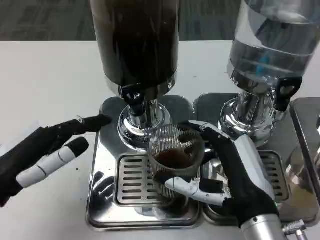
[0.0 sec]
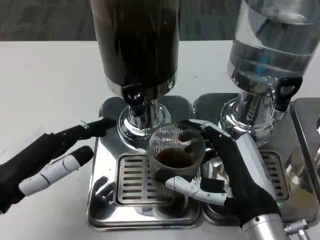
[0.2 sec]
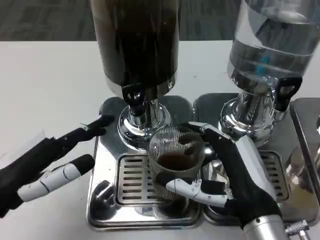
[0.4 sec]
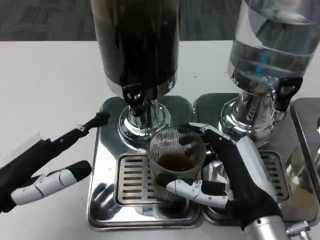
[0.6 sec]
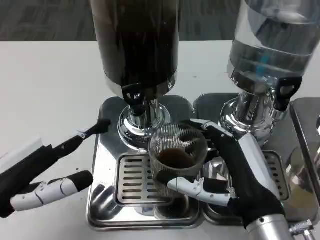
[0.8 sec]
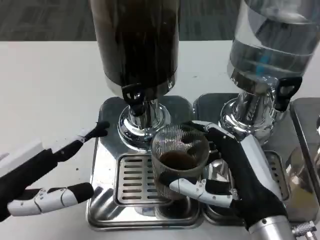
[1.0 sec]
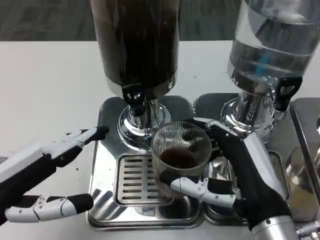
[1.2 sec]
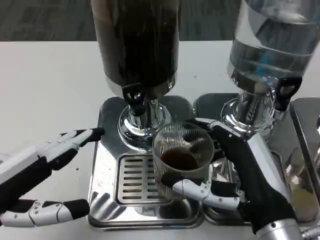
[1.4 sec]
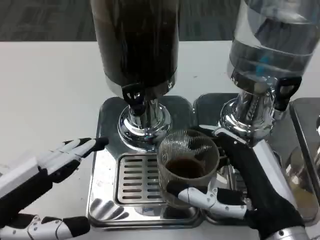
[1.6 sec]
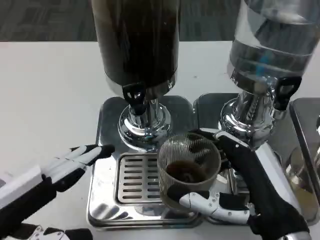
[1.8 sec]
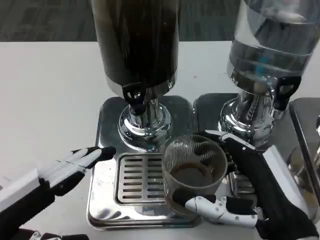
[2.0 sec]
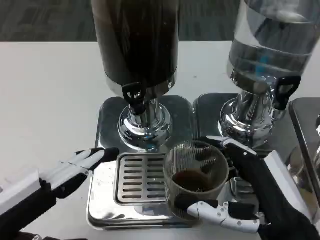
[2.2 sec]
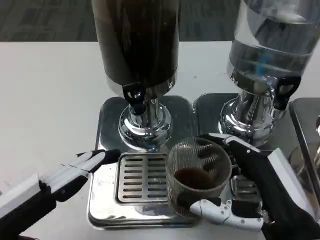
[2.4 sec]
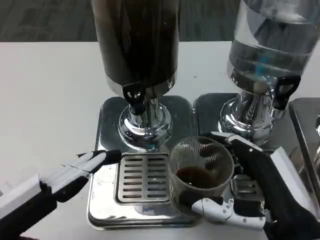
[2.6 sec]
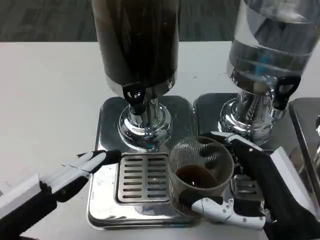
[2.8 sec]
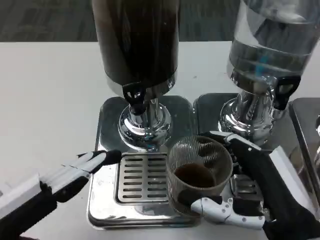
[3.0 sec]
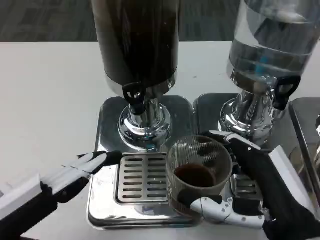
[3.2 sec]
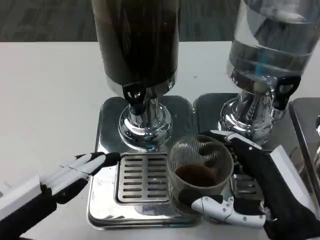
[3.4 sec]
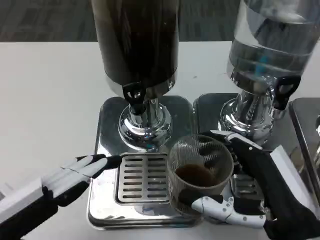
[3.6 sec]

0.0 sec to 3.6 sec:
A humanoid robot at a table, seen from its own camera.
Task of the whole recording: Grasp the cup under the faucet to collect the drink, then remove the cup.
0.0 sec to 1.8 sec: The left hand is displaced backward by approximately 5 cm.
1.8 sec to 3.6 sec: The hands make only small movements.

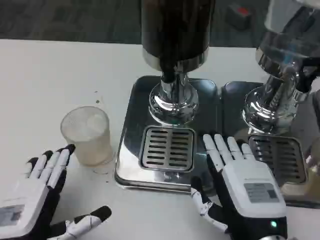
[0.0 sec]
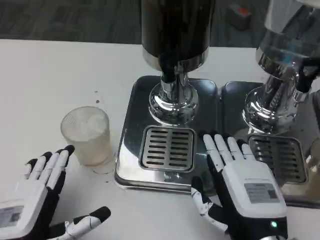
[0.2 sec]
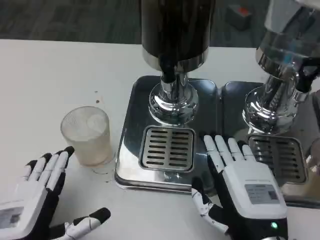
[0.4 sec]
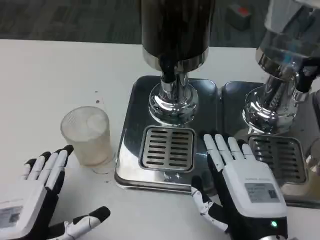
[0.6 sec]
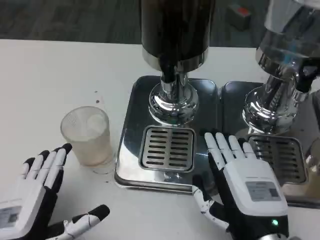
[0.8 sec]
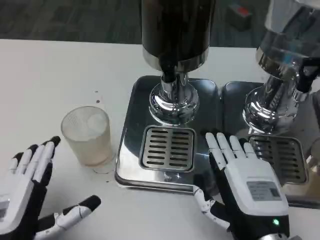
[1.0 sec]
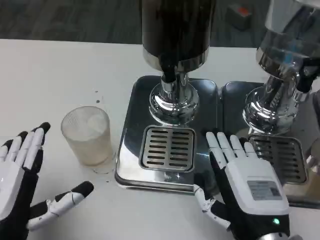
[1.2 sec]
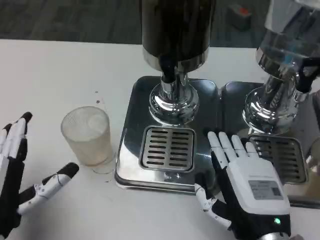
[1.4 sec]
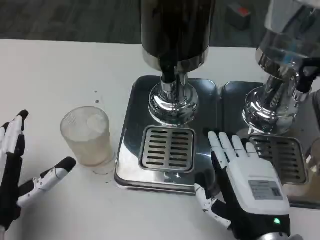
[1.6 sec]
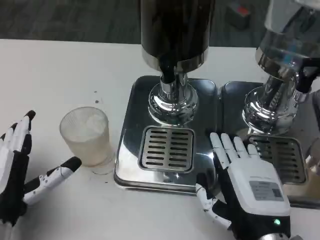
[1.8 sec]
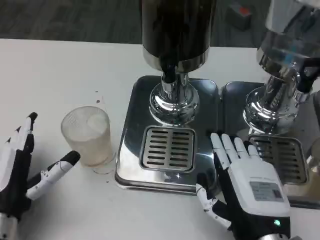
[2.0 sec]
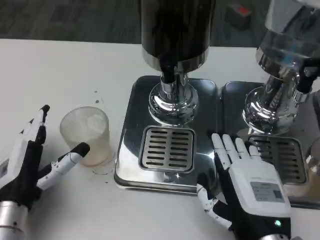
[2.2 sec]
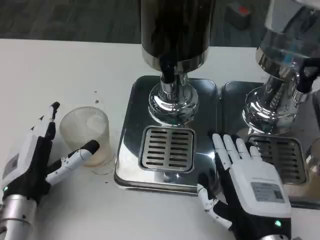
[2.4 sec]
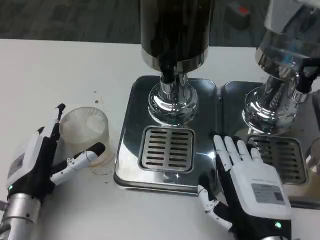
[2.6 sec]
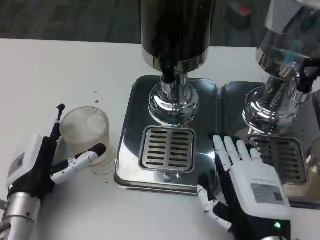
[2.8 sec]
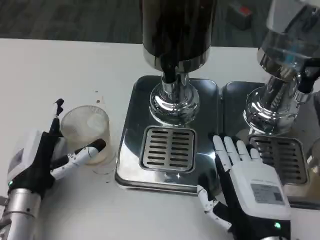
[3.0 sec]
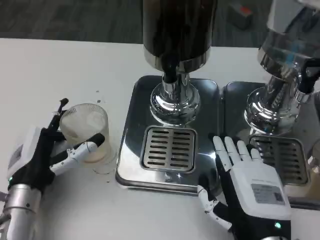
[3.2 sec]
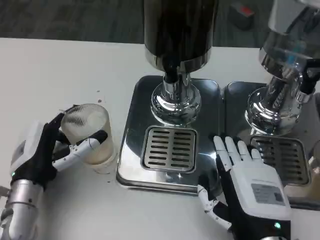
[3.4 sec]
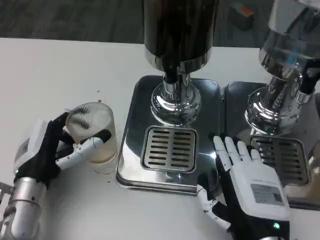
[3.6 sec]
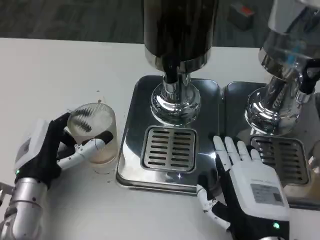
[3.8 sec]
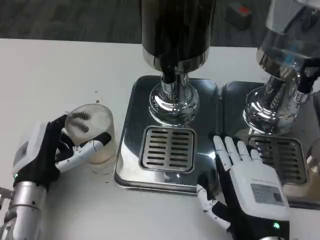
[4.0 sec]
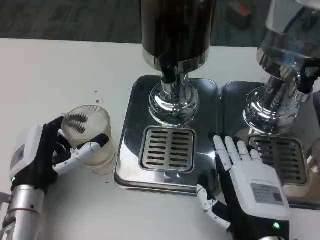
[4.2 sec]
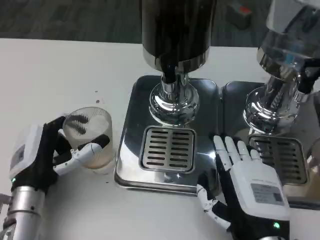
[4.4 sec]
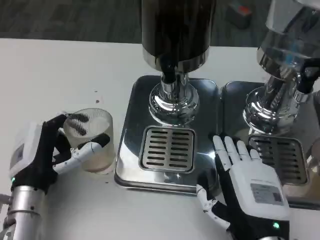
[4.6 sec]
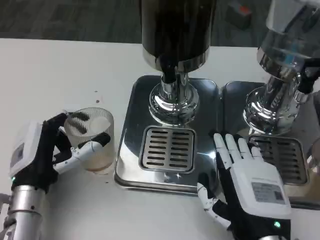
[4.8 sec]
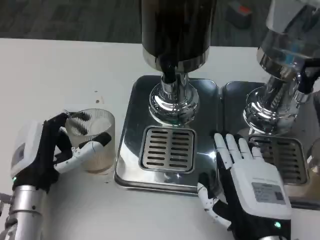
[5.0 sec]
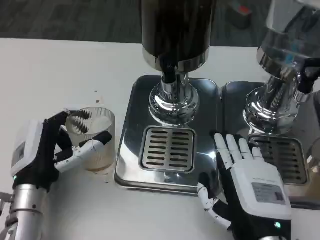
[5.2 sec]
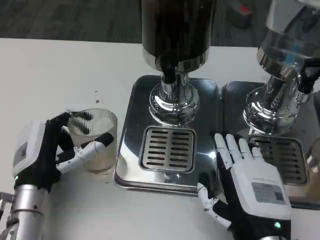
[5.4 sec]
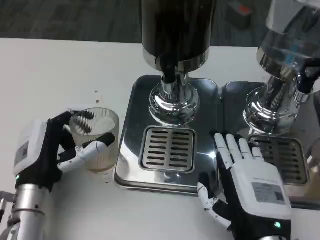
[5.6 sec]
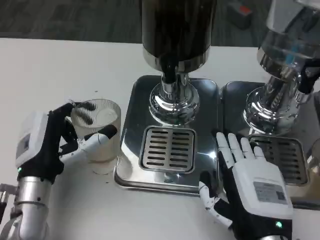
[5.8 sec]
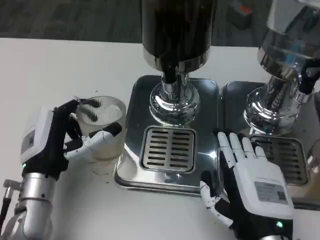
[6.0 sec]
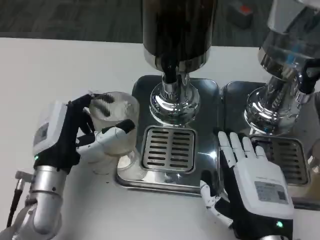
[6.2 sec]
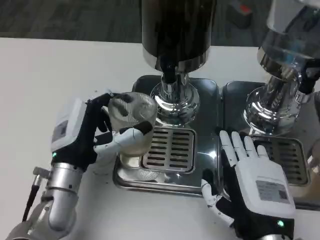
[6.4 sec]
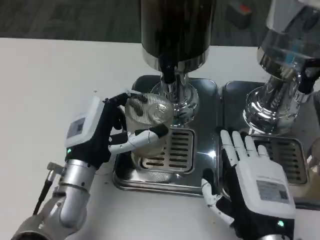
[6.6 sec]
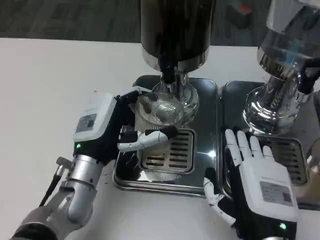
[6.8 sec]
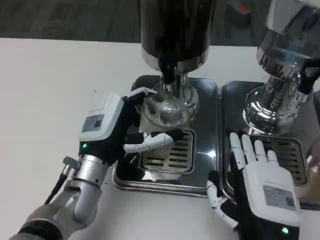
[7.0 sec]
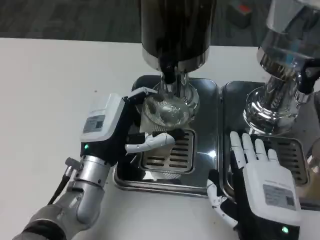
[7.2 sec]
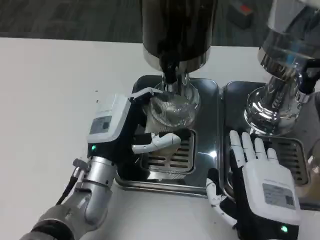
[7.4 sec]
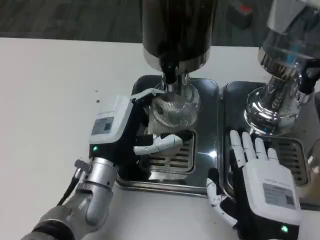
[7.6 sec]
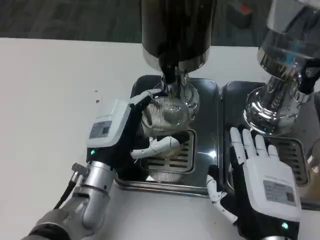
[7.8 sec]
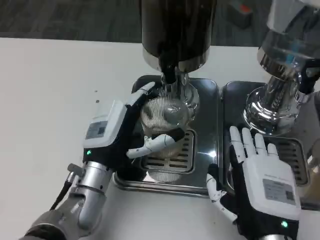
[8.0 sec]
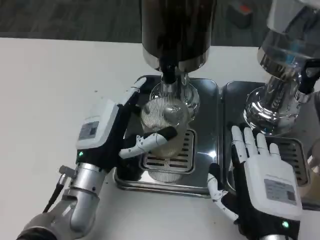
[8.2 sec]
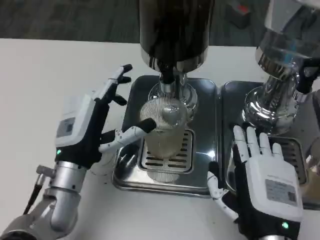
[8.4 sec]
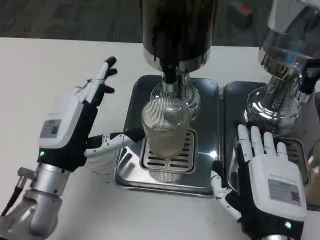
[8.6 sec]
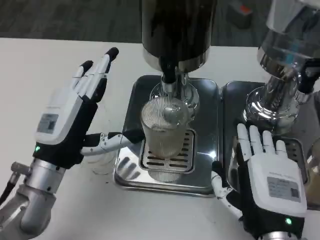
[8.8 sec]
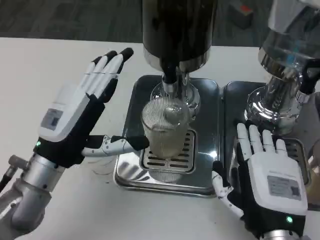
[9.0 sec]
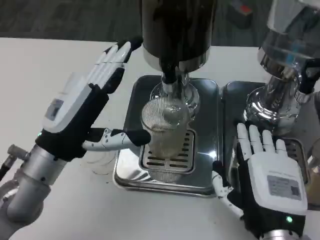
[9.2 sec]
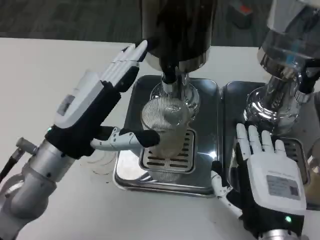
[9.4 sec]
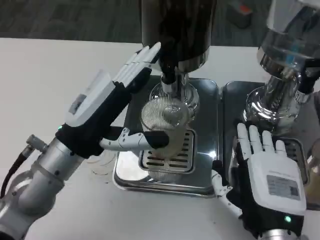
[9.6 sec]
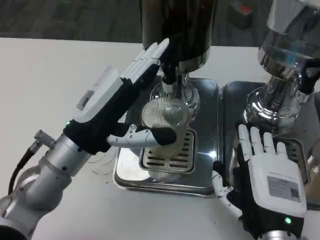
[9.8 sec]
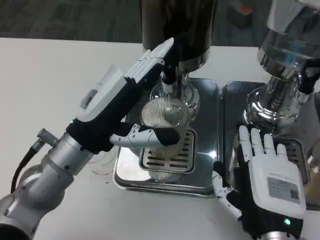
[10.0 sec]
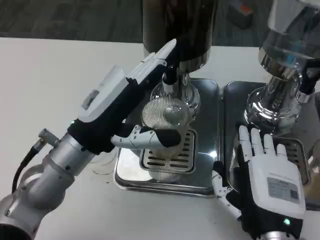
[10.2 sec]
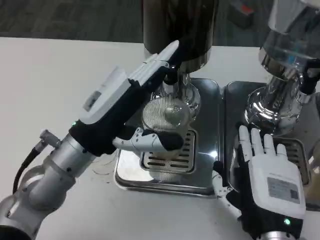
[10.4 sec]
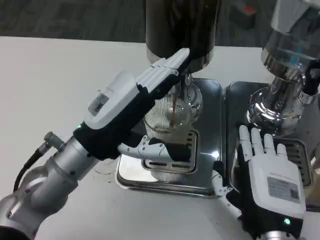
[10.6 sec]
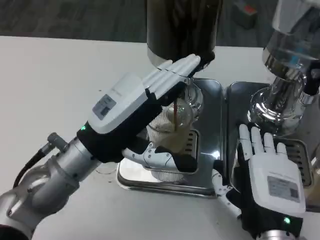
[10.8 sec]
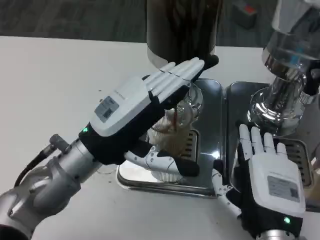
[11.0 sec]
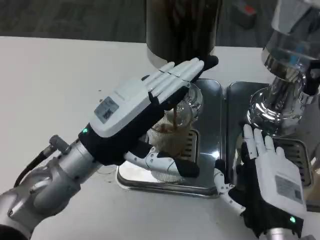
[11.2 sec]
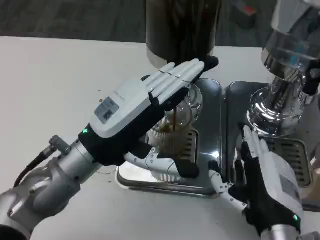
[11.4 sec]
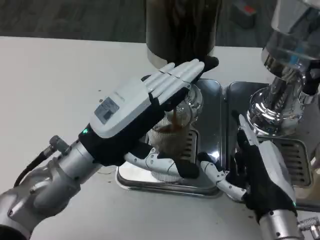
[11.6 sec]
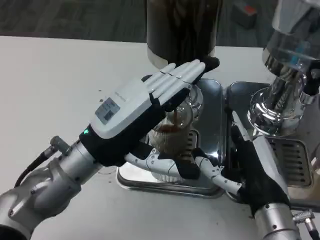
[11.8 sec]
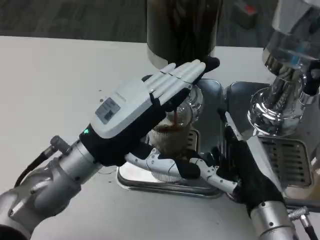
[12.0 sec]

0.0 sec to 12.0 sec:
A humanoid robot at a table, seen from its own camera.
Task of the whole recording: Grasp the cup under the faucet to collect the drink, then remove the cup.
0.0 sec to 1.6 sec: The left hand shifts by approximately 5 cm.
1.6 sec to 3.0 sec: The left hand travels forward by some 5 cm.
3.0 sec to 6.0 sec: The hands move only a little.
6.0 sec to 7.6 sec: The left hand travels to the right by some 10 cm.
7.6 sec to 9.0 sec: The left hand heads to the left, covering about 10 cm.
9.0 sec to 10.4 sec: The left hand changes place by approximately 5 cm.

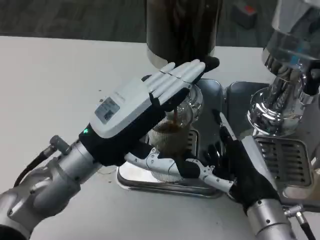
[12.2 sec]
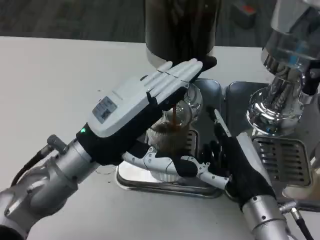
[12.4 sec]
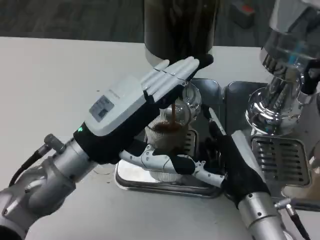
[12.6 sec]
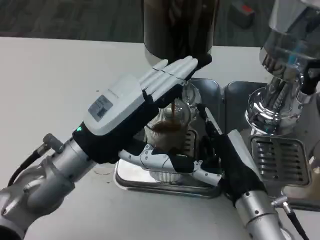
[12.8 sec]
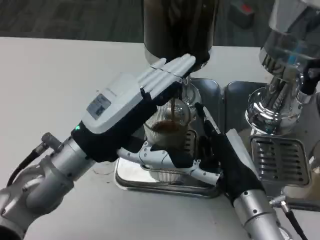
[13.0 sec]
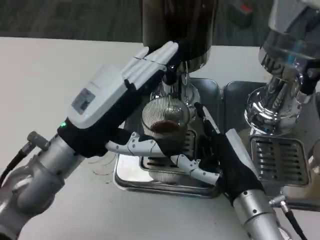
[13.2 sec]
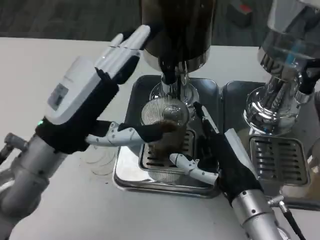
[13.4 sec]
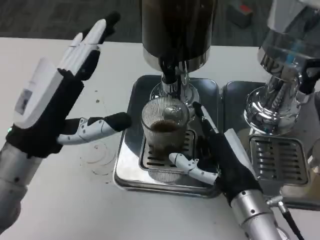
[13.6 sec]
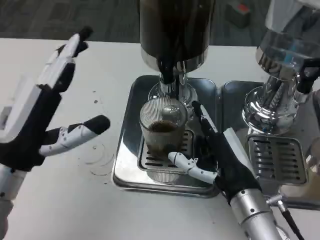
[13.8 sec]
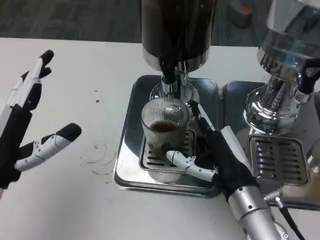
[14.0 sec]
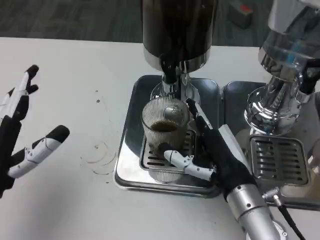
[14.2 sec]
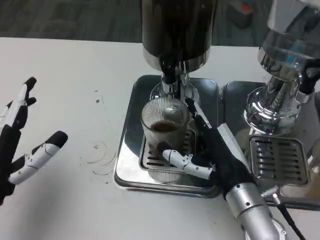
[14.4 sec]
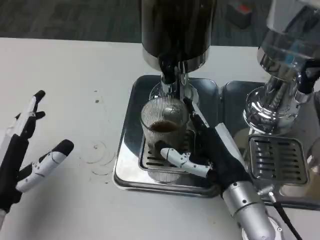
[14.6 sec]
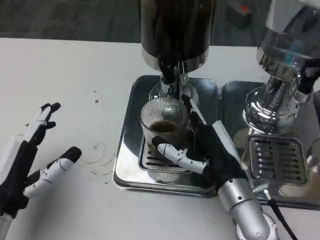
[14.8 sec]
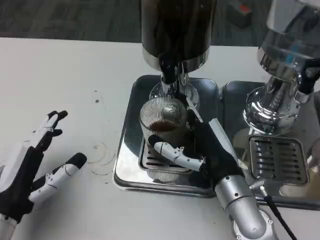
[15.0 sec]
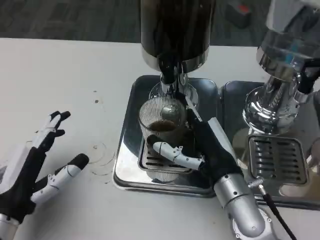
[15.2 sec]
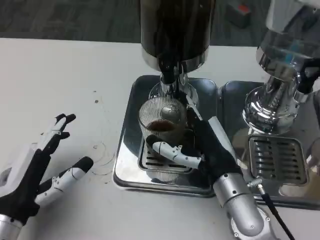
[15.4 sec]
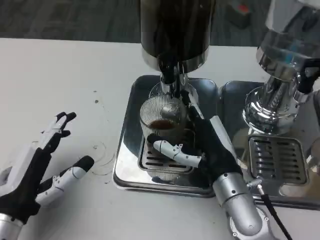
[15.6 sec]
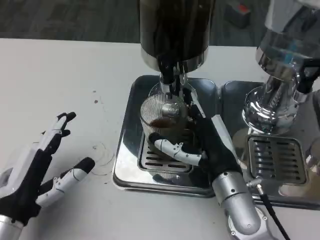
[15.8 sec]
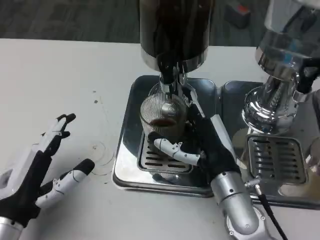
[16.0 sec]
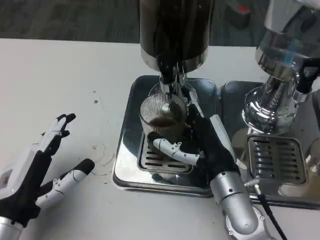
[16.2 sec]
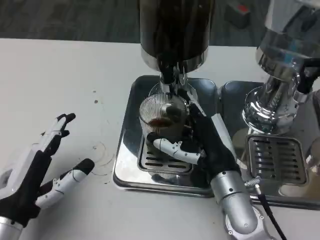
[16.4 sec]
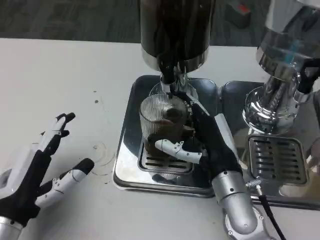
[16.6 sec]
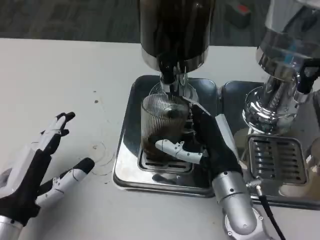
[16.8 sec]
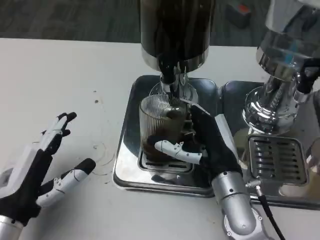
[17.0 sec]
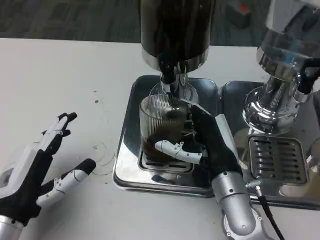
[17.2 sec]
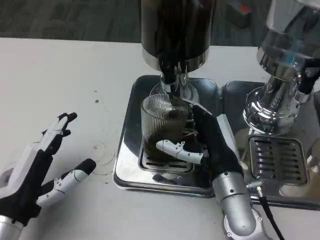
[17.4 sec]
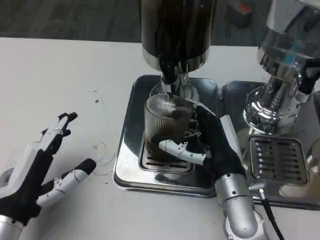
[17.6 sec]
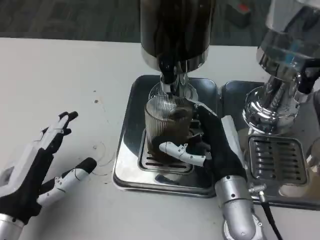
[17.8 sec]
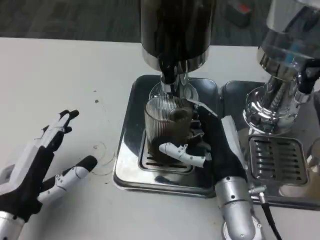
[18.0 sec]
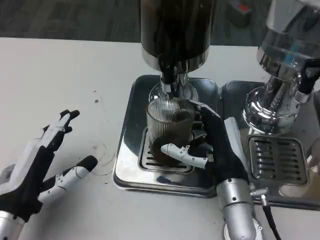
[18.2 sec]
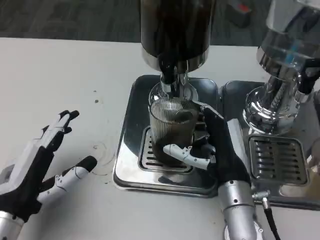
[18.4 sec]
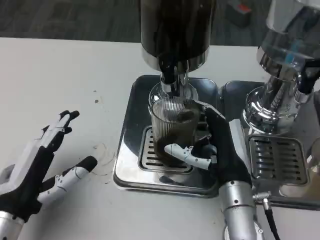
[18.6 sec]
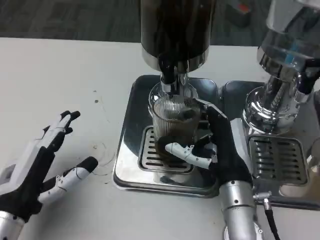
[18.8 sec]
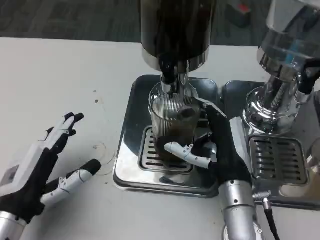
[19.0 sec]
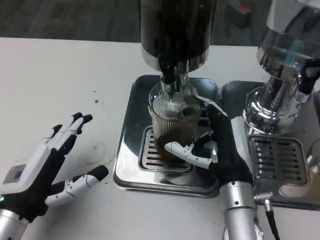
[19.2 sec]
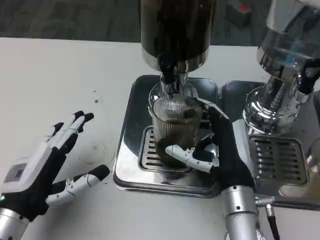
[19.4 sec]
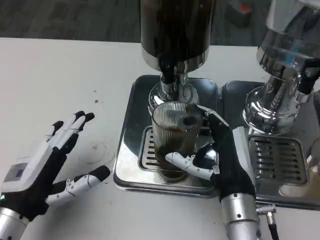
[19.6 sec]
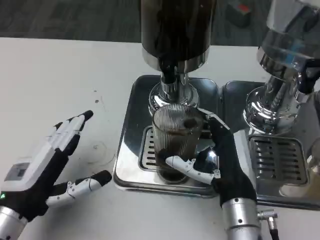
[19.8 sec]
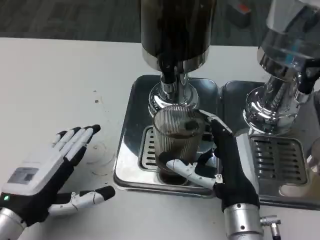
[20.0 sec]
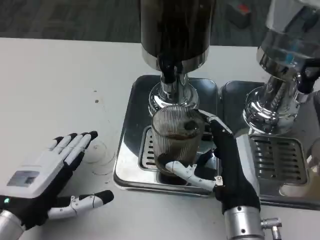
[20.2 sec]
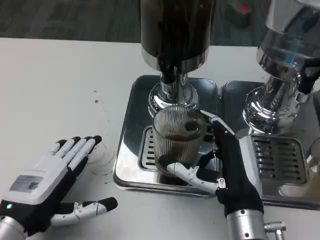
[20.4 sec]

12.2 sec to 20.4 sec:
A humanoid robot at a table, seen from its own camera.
Task of the whole recording: Grasp the cup under the faucet to collect the drink, then remove the cup.
12.2 sec to 13.8 sec: The left hand heads to the left, covering some 10 cm.
13.8 sec to 15.4 sec: The left hand is displaced downward by approximately 5 cm.
15.4 sec to 18.8 sec: The hands make only small movements.
